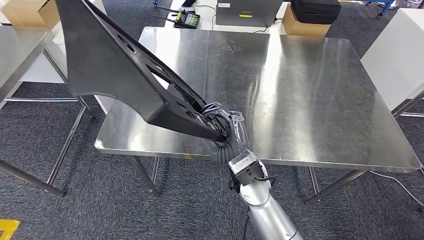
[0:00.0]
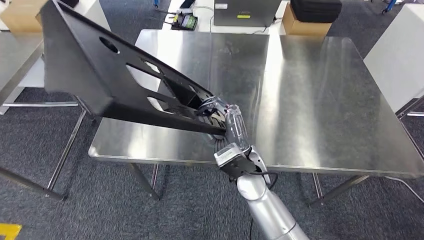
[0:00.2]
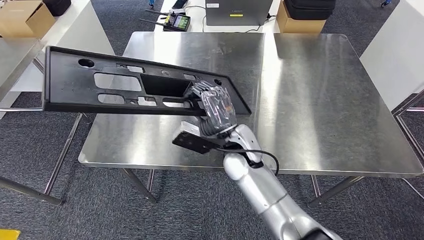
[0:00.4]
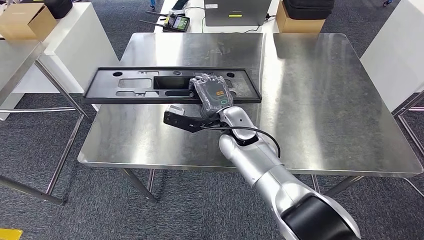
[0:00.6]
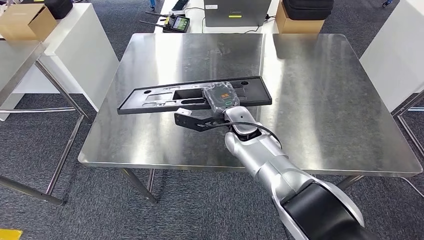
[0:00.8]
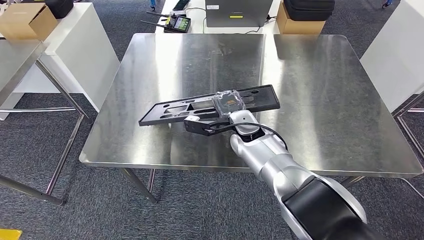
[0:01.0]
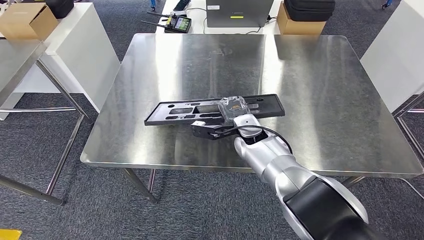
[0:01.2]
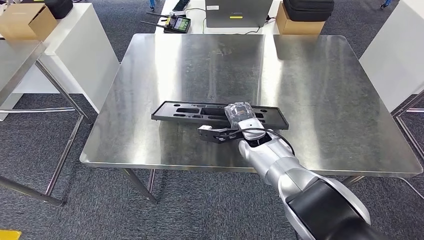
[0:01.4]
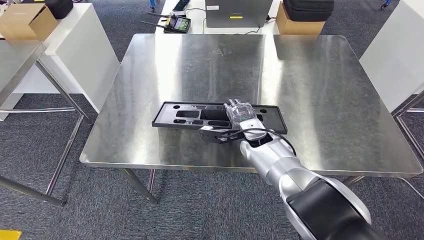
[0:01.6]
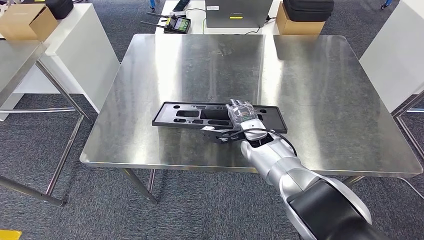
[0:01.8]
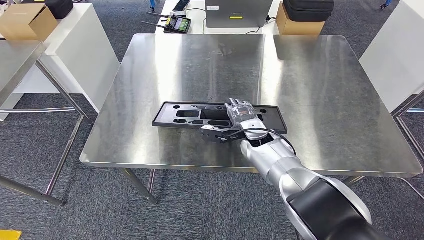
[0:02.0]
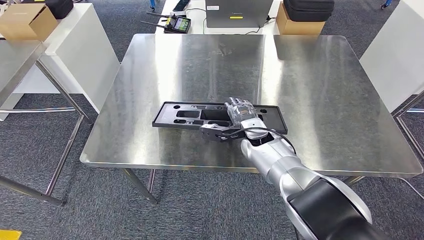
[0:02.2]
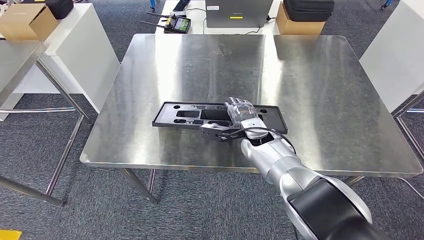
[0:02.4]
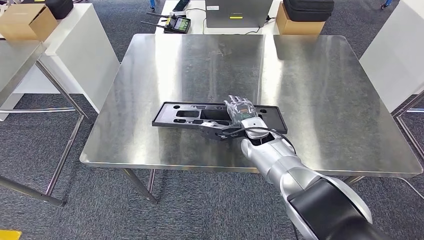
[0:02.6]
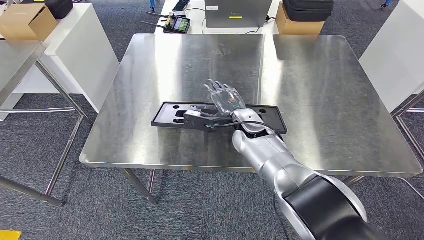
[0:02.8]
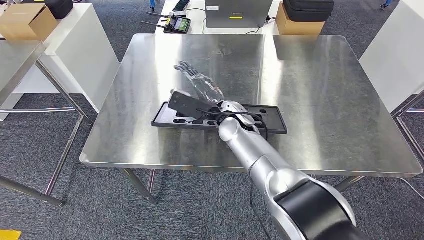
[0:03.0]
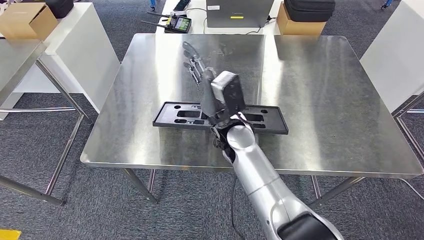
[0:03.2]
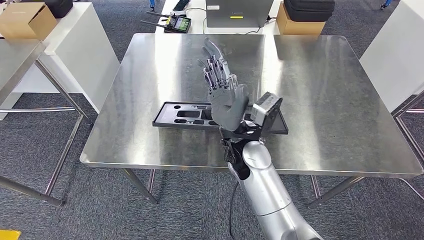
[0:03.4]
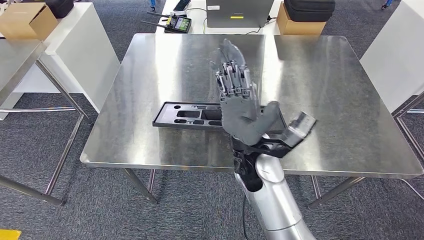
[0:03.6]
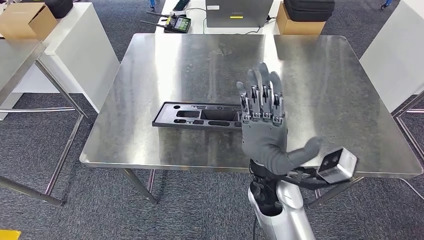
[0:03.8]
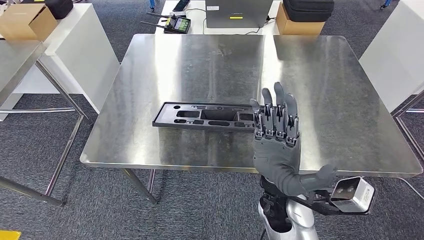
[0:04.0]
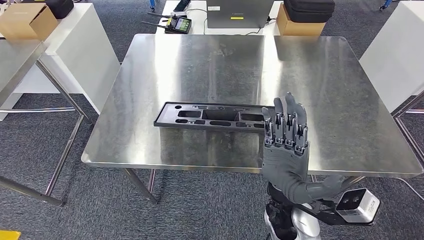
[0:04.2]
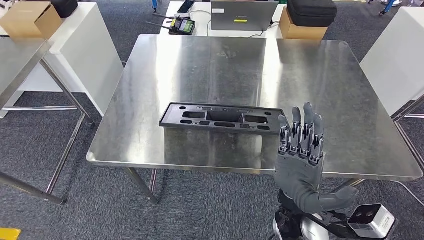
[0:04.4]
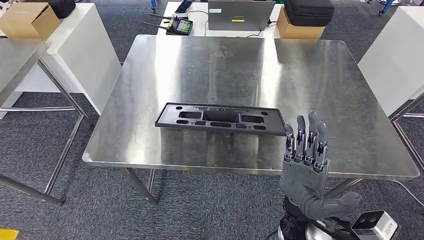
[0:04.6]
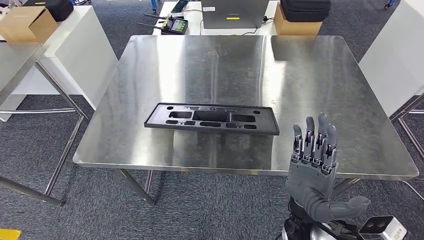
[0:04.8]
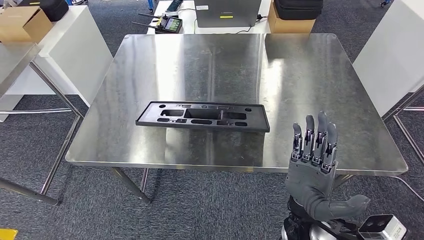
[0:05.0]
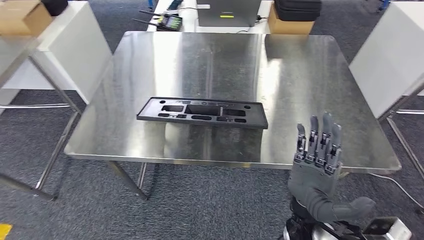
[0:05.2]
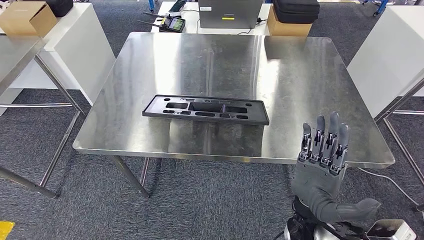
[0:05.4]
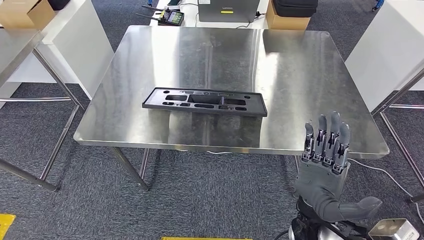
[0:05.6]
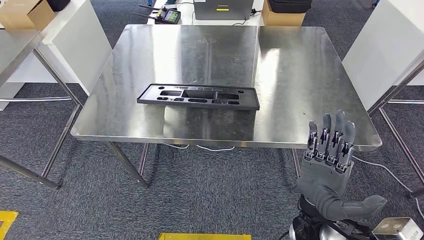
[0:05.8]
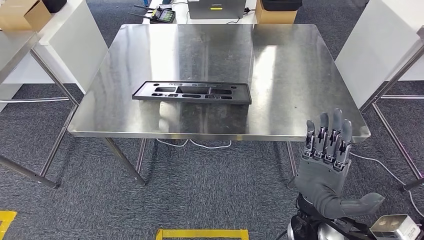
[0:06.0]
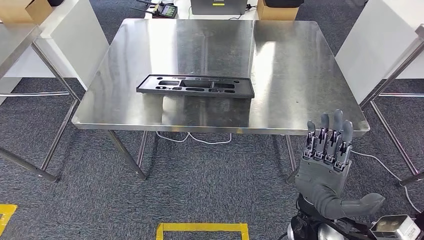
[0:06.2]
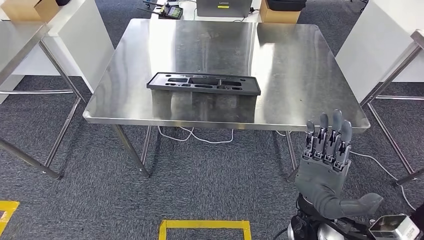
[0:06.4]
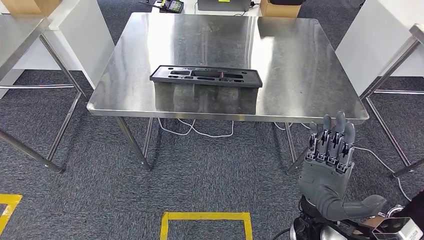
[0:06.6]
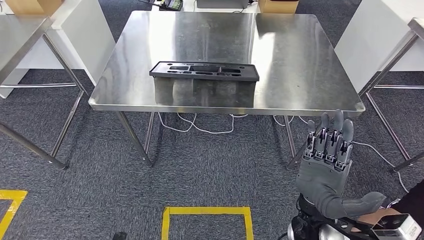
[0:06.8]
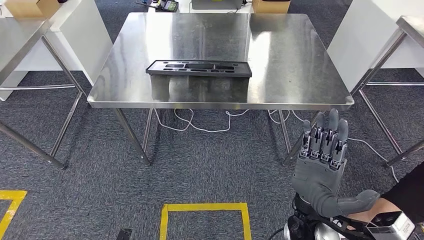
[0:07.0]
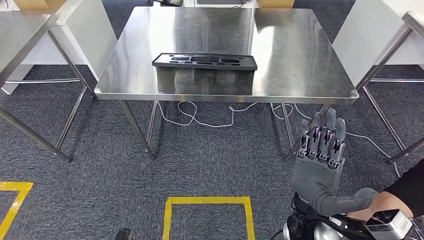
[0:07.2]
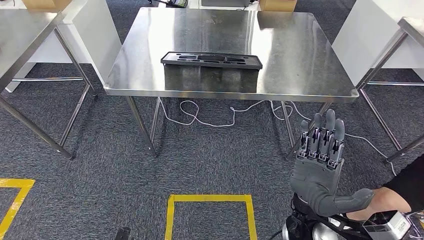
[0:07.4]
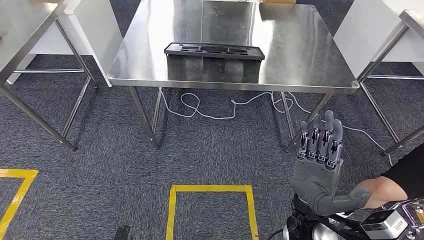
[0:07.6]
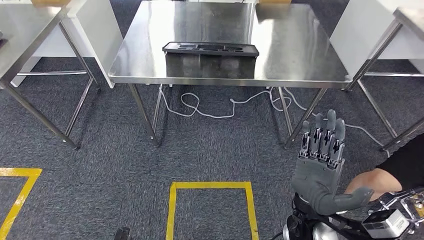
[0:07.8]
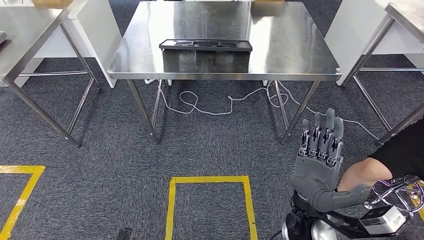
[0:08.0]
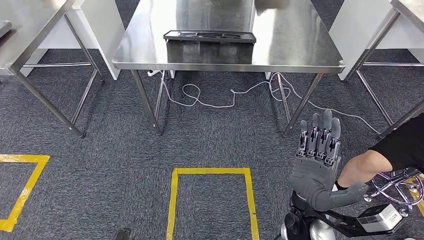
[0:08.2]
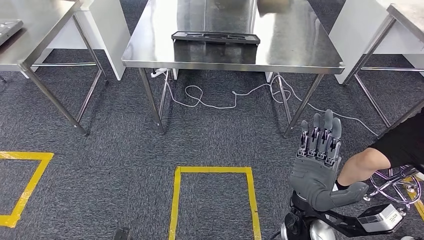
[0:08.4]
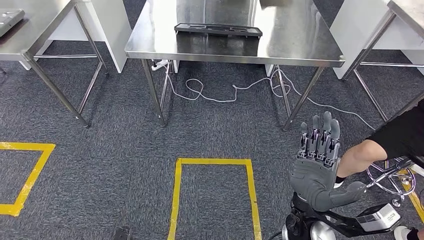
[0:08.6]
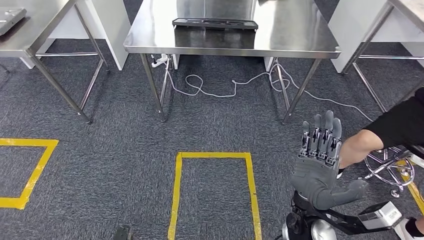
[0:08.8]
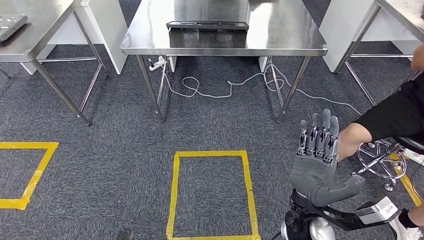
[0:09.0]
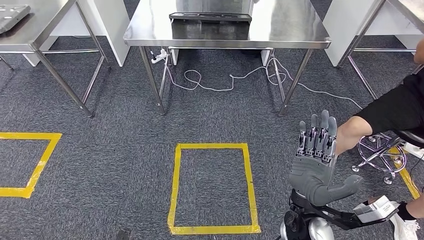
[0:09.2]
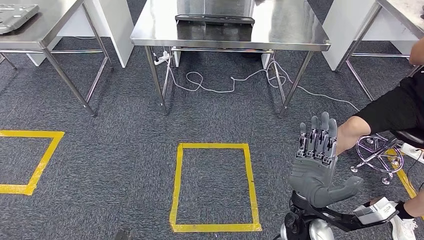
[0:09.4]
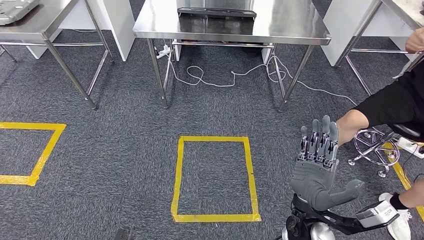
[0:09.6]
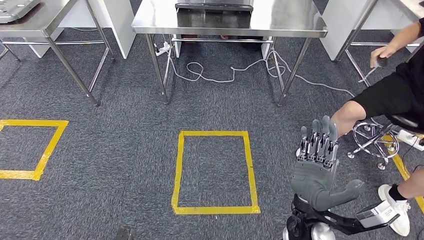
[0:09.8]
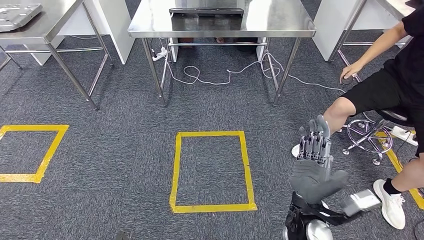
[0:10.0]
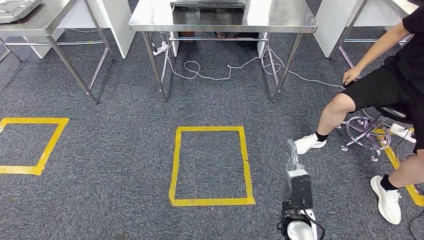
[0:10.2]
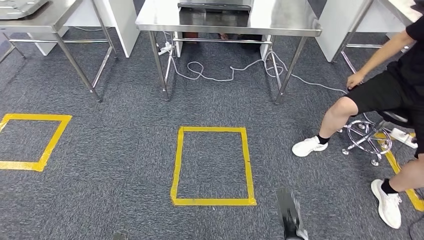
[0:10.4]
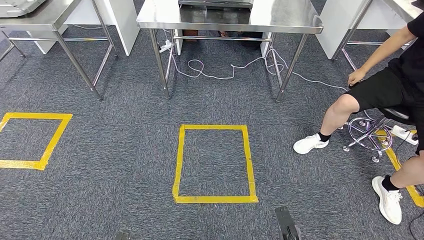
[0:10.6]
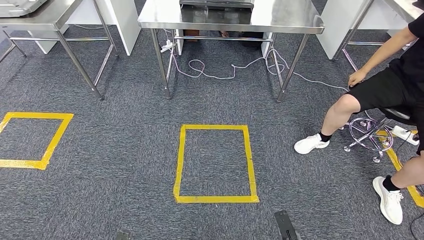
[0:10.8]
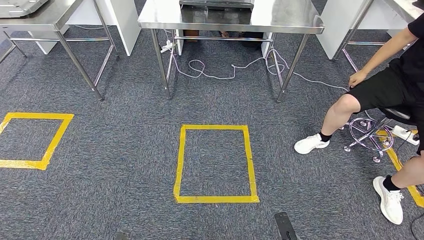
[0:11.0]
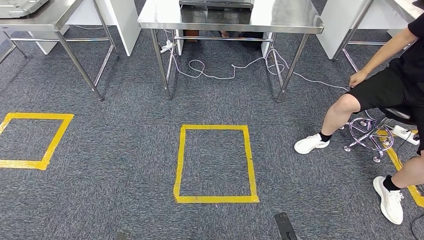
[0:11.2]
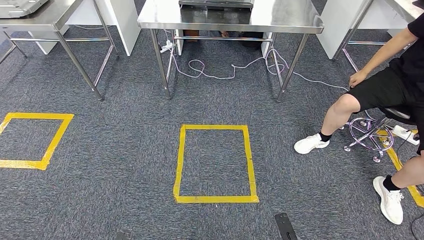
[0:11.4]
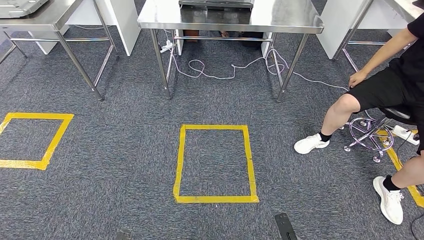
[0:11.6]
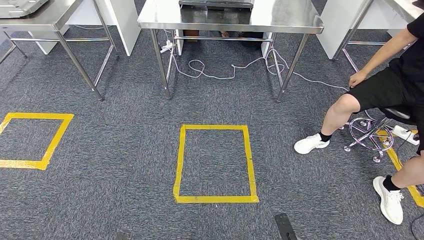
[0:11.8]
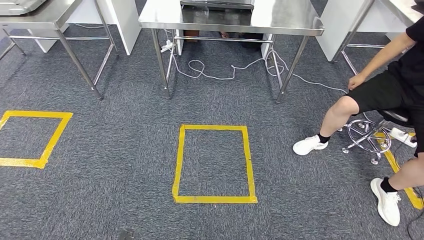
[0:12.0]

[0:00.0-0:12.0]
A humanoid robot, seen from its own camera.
Step, 0:00.0 to 0:09.6: Insert the large material into the corresponding hole on the workbench.
0:01.6 to 0:03.0: The right hand is displaced upward and to the left by some 10 cm.
0:10.4 to 0:12.0: The right hand travels backward and downward by approximately 15 cm.

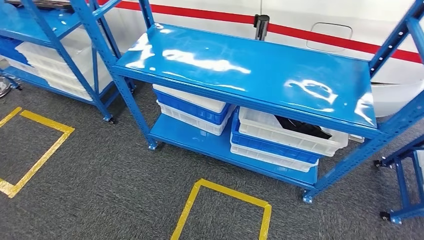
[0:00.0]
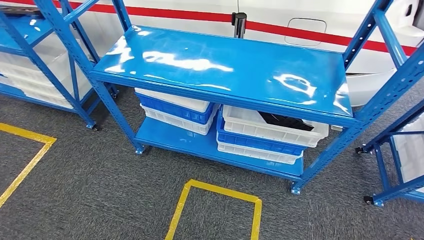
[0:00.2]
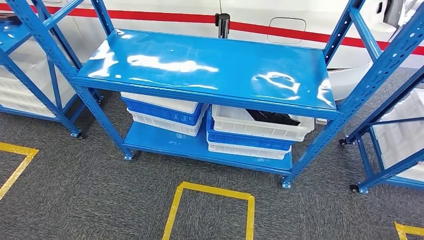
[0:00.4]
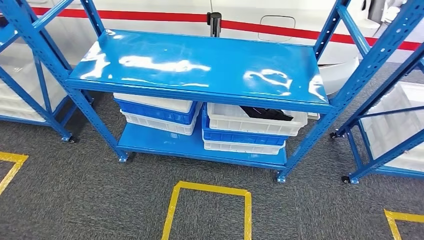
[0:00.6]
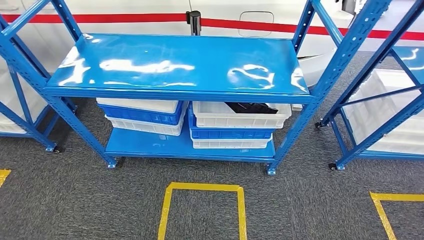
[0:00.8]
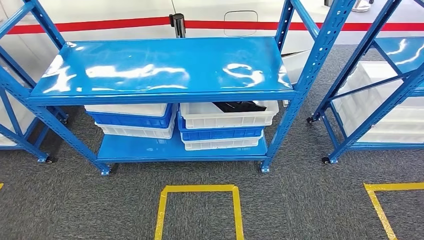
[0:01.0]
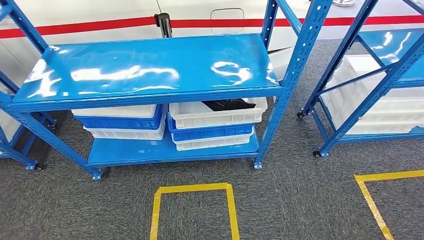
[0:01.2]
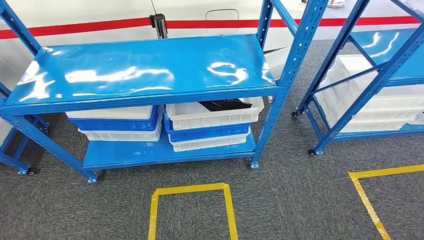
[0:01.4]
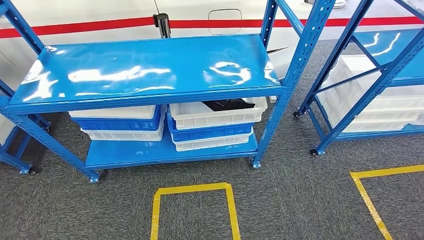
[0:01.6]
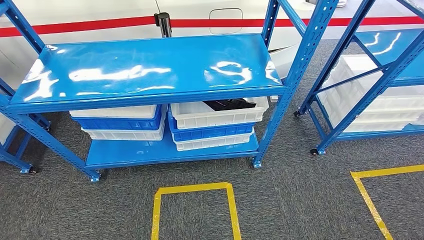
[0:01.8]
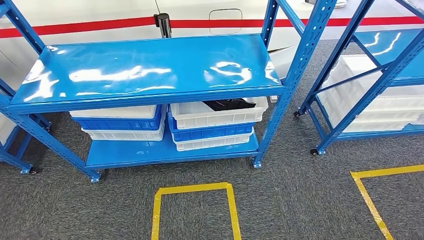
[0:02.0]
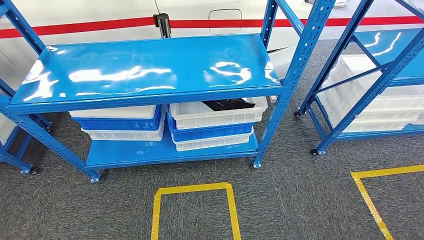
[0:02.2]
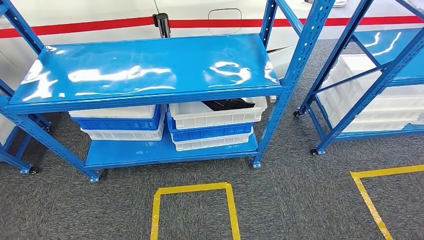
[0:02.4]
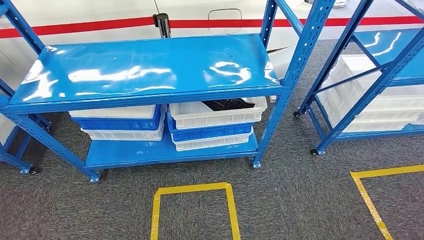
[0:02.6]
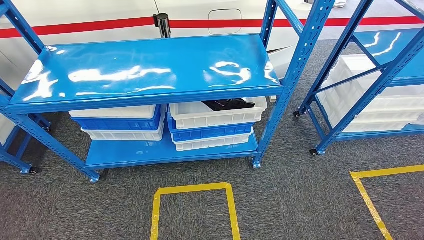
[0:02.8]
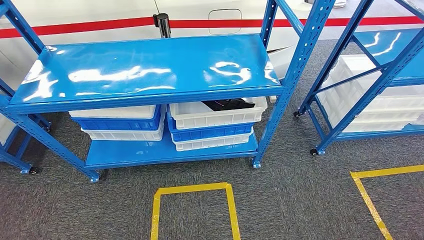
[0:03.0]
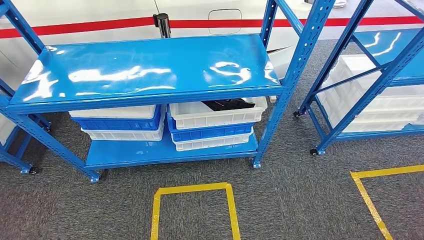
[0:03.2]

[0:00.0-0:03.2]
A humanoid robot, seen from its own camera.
Step, 0:00.0 to 0:03.2: Move to the initial position of the shelf.
